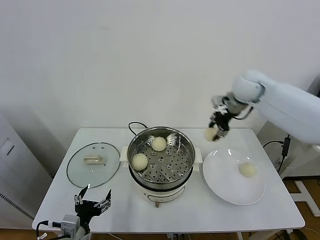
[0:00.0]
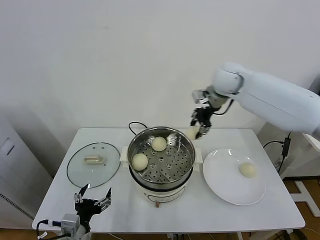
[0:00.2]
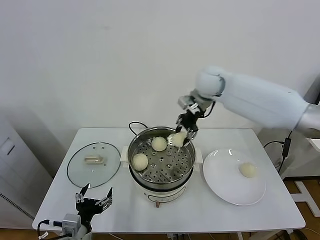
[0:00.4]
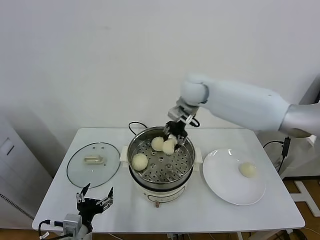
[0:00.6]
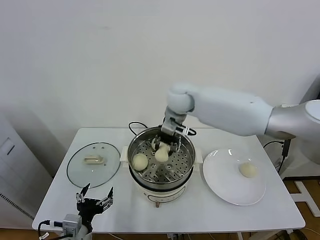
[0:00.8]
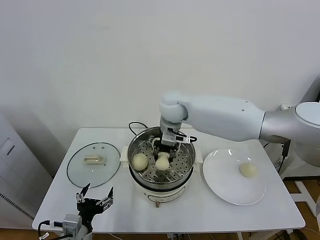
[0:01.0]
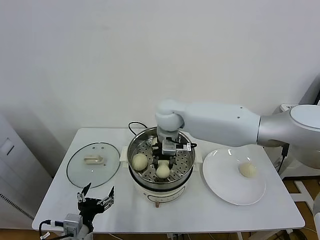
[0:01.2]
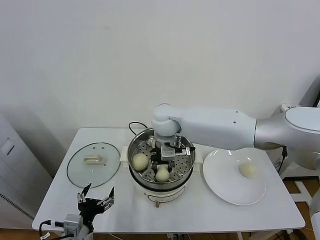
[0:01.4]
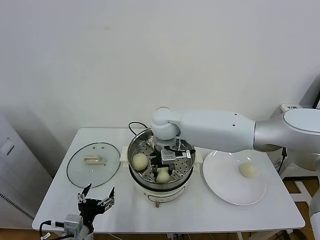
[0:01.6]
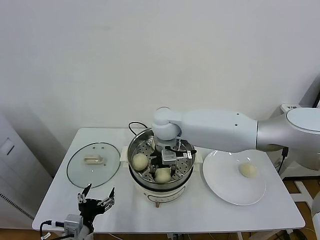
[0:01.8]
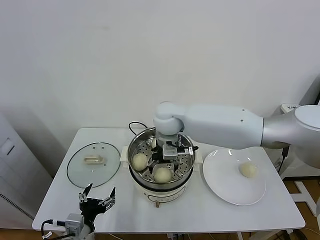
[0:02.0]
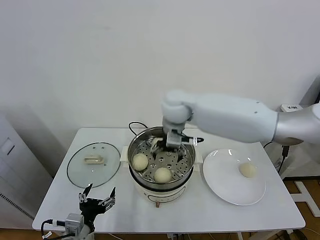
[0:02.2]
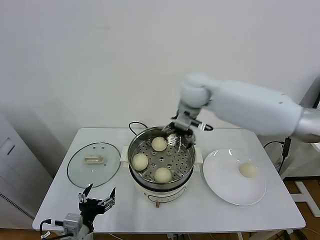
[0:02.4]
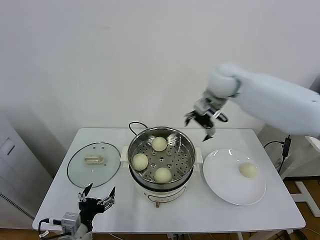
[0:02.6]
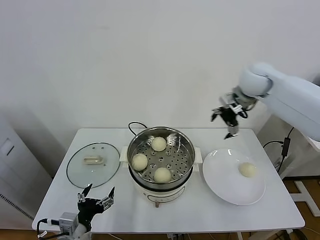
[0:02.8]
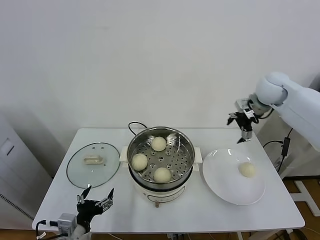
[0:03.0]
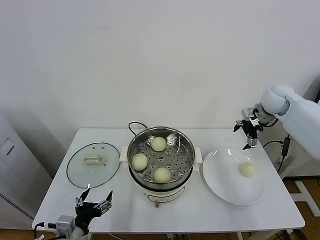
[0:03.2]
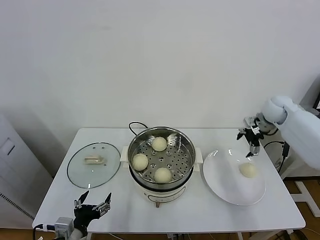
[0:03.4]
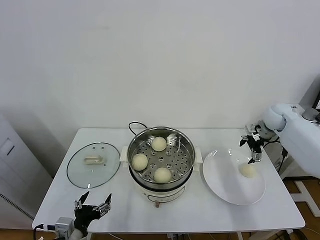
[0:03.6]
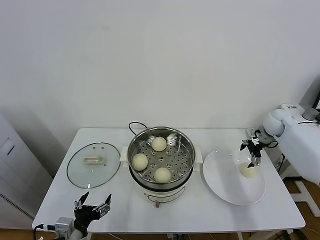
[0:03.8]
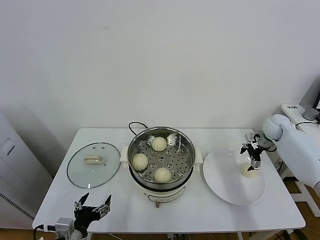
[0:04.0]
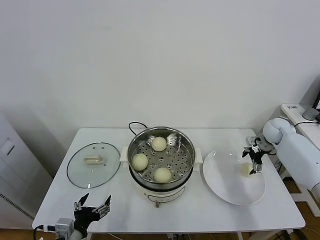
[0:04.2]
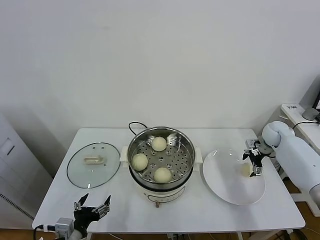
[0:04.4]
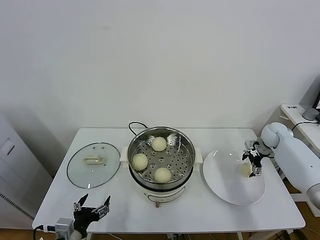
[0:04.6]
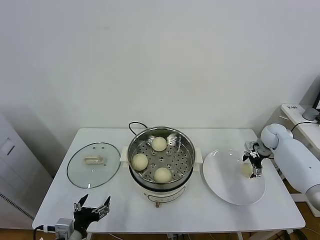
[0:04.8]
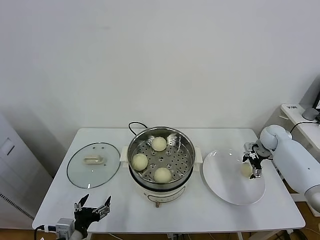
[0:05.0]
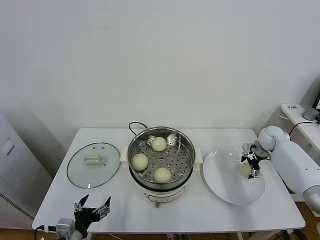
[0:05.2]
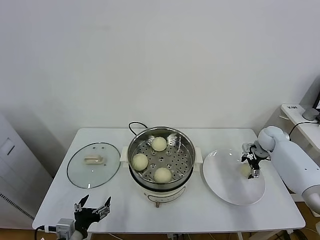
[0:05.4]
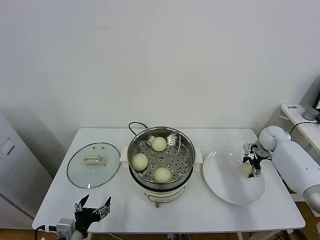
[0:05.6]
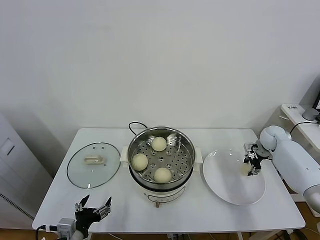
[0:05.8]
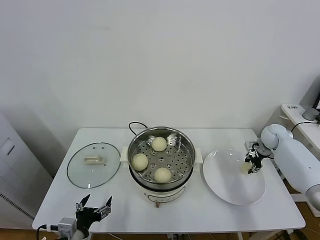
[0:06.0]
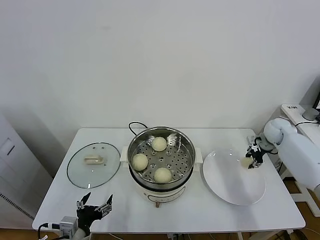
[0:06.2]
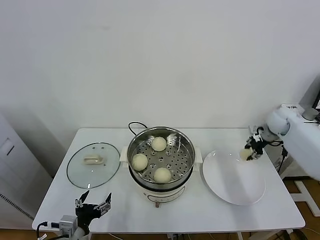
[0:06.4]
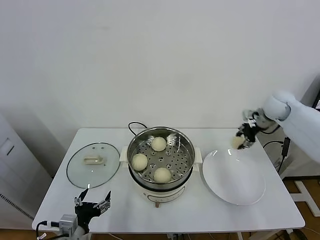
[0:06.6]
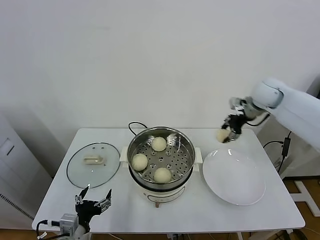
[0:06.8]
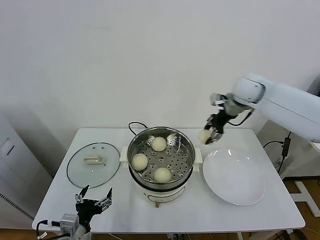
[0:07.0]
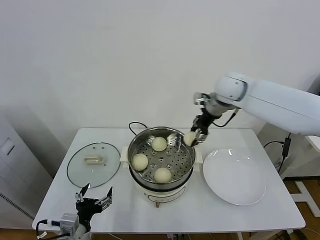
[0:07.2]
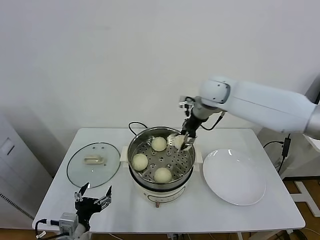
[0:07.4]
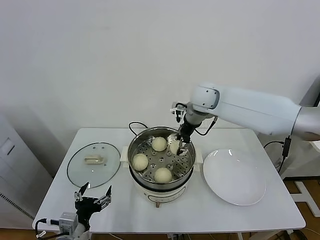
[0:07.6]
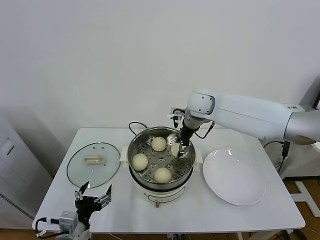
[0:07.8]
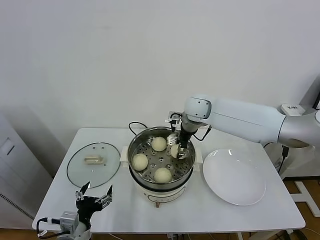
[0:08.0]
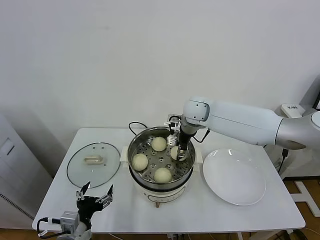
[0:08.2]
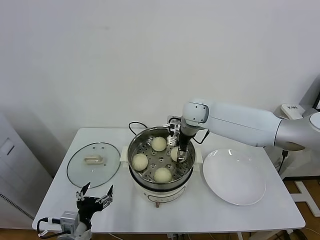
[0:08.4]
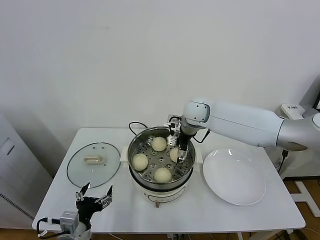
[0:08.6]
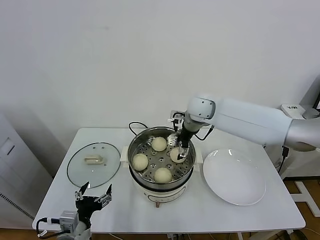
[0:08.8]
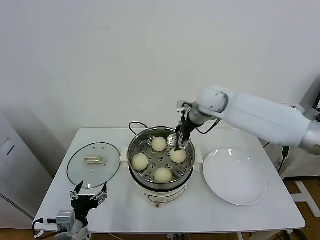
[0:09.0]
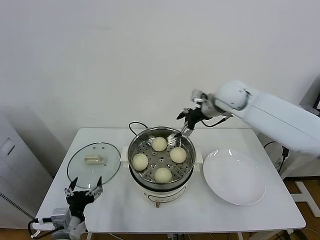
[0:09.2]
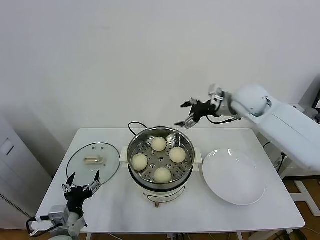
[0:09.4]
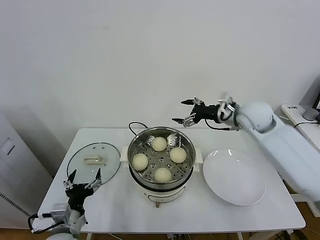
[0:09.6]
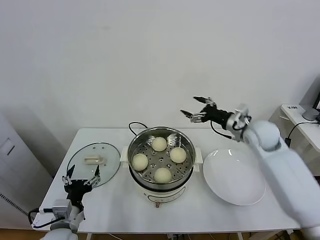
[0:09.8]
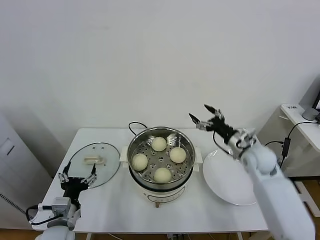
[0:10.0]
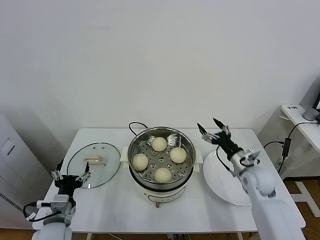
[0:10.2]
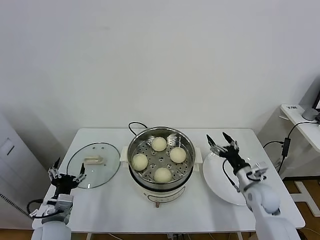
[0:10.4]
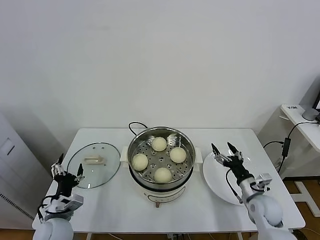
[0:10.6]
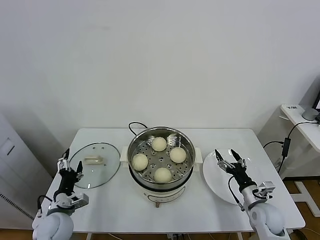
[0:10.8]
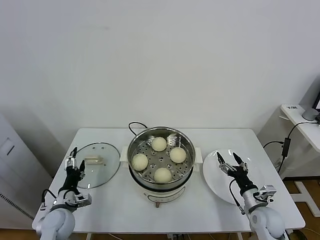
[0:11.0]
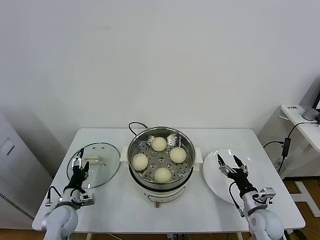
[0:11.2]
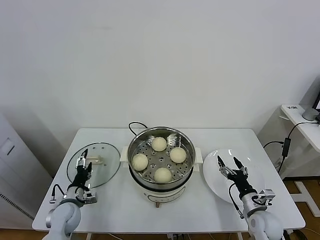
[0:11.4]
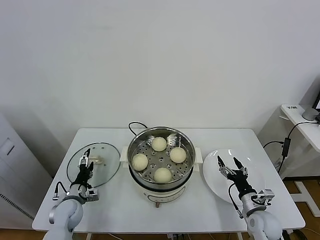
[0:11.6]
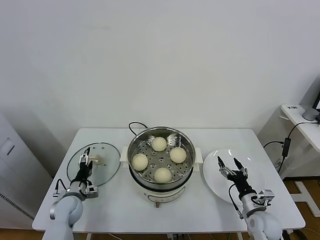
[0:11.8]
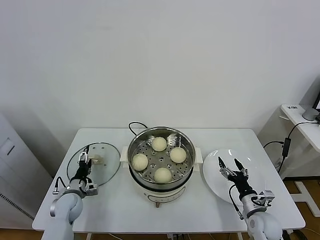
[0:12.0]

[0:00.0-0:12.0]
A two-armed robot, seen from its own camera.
Task of the whole recording: take steamed baozi put them in steamer.
Step, 0:00.0 to 0:02.0: Place the baozi on the steamer with right gripper.
Step, 0:02.2 to 0:05.8: Grasp the baozi in the plate with right gripper.
Step, 0:06.0 to 0:08.8: Place the baozi on the steamer with right gripper.
0:00.0 to 0:01.6: The right gripper goes about 25 cm to the left.
0:01.6 to 0:03.0: The right gripper travels to the right by approximately 35 cm, and opens up.
0:03.0 to 0:04.4: The right gripper goes some 25 cm downward and to the right.
0:04.4 to 0:06.0: The right gripper closes.
0:06.0 to 0:07.6: The right gripper heads to the left and upward, covering roughly 35 cm.
0:07.6 to 0:09.0: The right gripper opens.
0:09.0 to 0:10.4: The right gripper is displaced downward, backward and to the right by about 35 cm. Meanwhile the left gripper is displaced forward by roughly 5 cm.
0:10.4 to 0:12.0: The left gripper shifts roughly 15 cm forward and downward, while the right gripper moves downward and backward, roughly 10 cm.

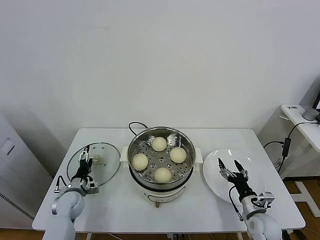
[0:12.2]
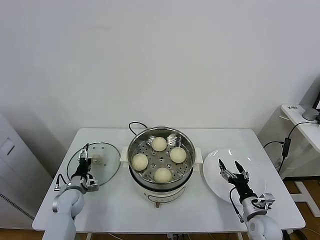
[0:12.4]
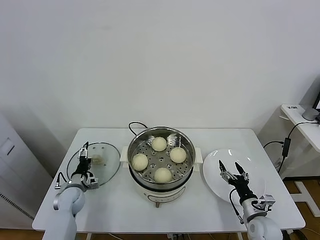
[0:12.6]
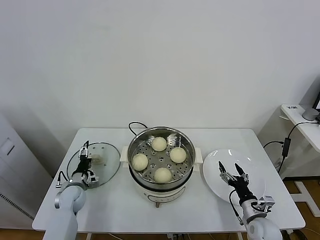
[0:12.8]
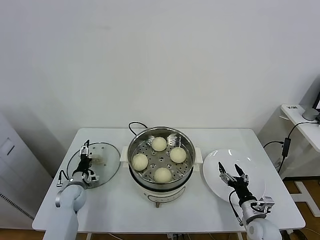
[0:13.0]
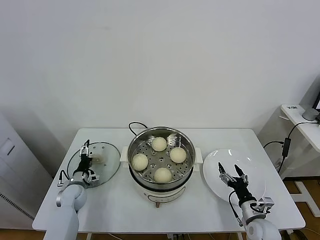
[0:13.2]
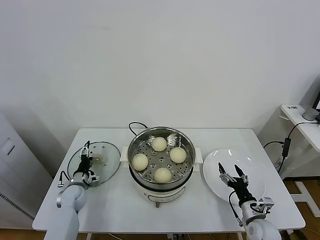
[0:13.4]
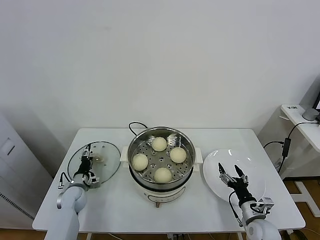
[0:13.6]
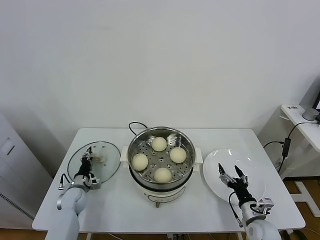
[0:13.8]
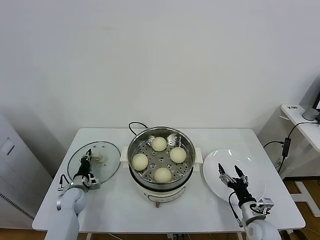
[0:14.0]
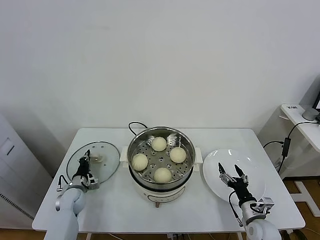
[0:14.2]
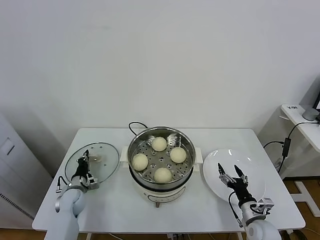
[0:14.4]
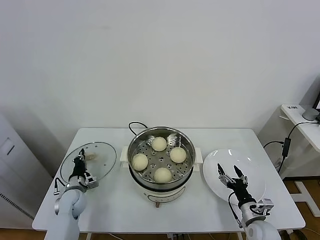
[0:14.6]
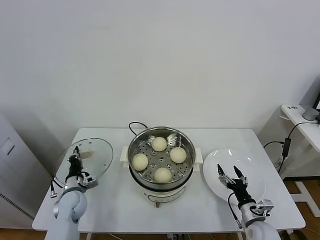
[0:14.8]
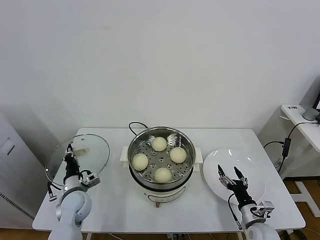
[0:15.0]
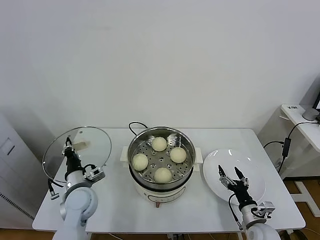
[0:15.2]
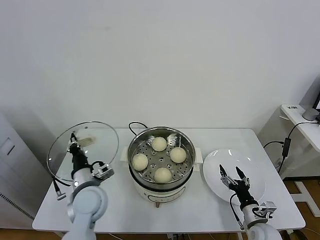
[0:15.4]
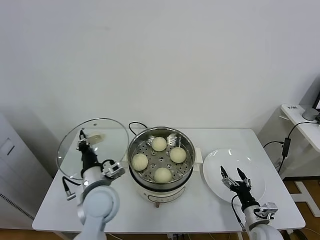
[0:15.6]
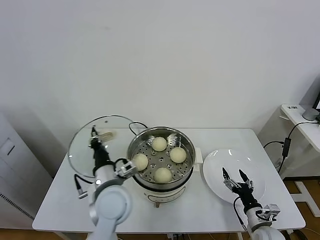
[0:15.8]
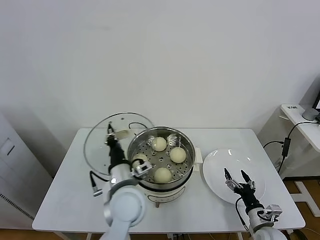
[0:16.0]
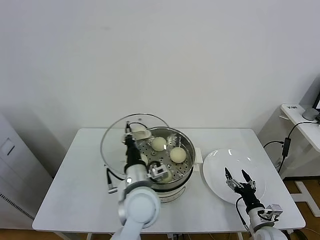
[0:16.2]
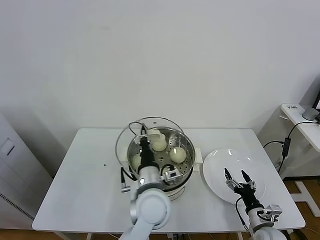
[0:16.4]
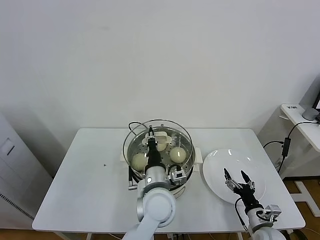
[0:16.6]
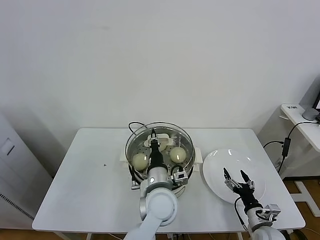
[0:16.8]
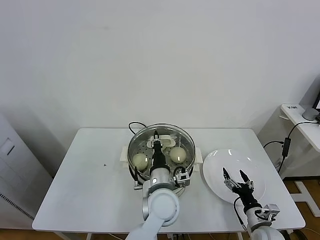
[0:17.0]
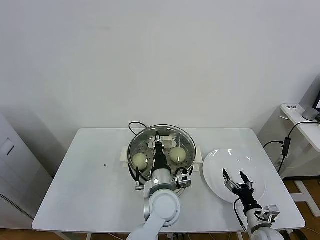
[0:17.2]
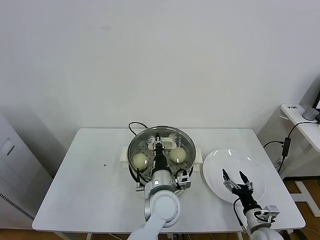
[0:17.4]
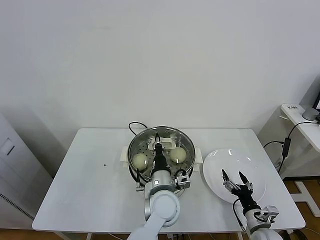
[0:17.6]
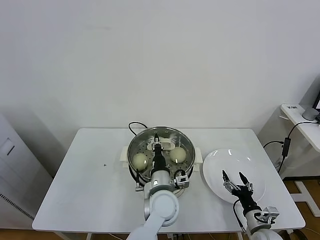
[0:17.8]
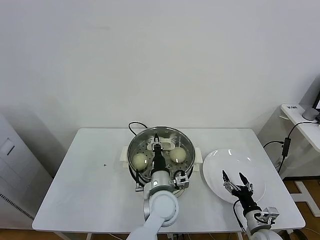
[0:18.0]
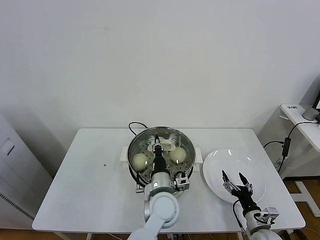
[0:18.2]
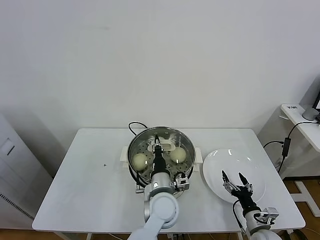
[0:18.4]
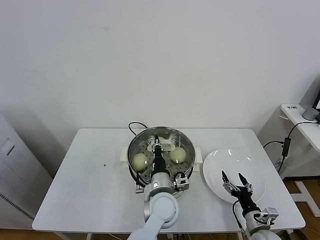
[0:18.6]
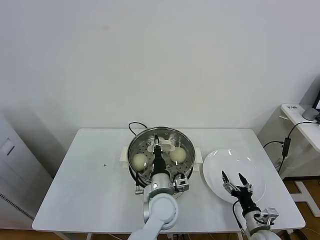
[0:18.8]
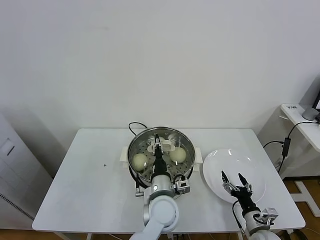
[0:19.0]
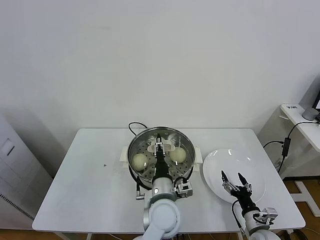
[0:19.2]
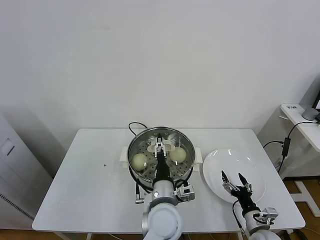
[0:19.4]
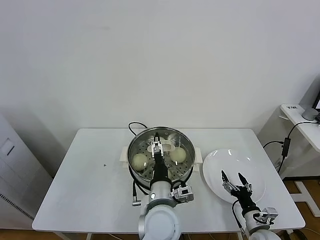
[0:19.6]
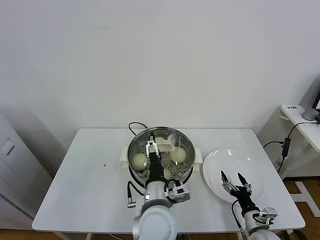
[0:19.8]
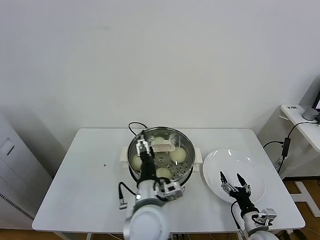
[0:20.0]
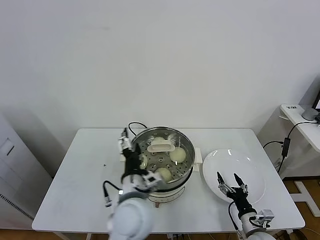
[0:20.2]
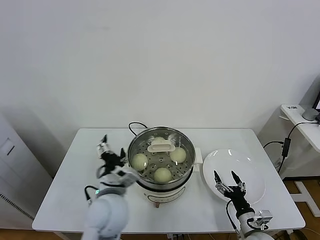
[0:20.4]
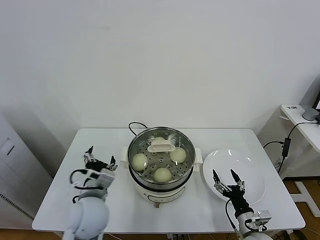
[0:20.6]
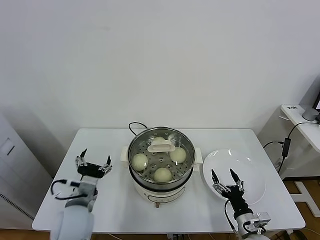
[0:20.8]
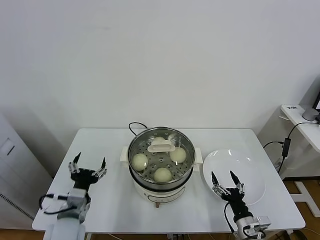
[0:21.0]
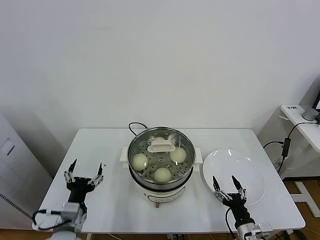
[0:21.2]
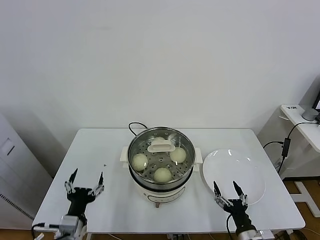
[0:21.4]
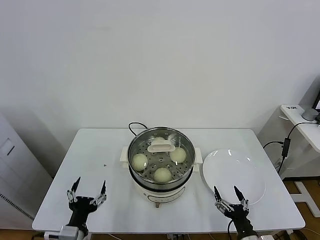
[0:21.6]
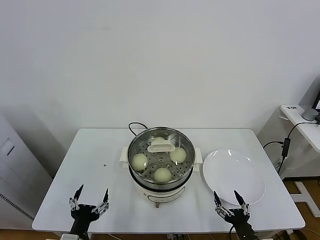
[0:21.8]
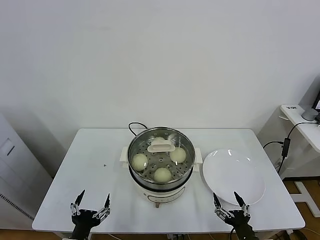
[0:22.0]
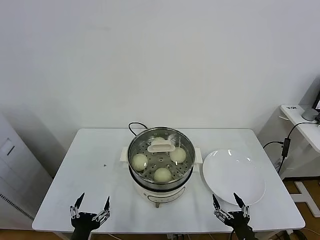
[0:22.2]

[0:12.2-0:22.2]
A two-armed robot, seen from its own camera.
Task of the whole recording: take steamed baozi put them in steamer.
Step, 0:12.2 to 0:14.2: Grasp the pot lid with left gripper.
Step, 0:14.4 to 0:19.6: Place the pot lid on the steamer with left gripper.
0:12.2 to 0:13.6: The grippers stay close to where they were, moving slightly.
0:13.6 to 0:15.0: The left gripper travels upward and backward by approximately 10 cm, and closes up.
0:15.0 to 0:16.4: The left gripper heads to the right and upward, covering some 30 cm.
0:16.4 to 0:18.0: The left gripper heads downward, covering some 5 cm.
0:18.0 to 0:19.4: The left gripper opens up.
0:19.4 to 0:20.8: The left gripper goes about 20 cm to the left.
0:20.8 to 0:22.2: The right gripper shifts about 10 cm backward. The left gripper moves backward and downward, some 15 cm.
